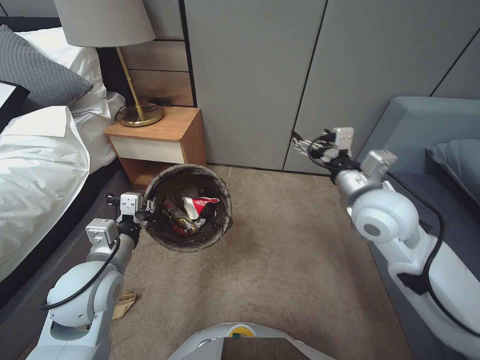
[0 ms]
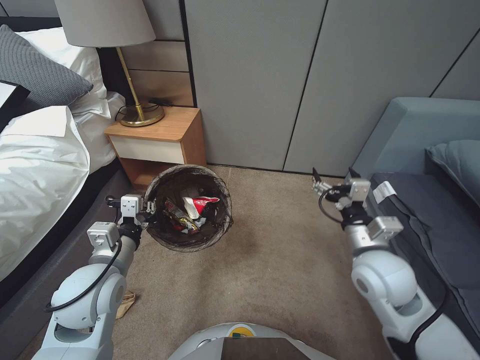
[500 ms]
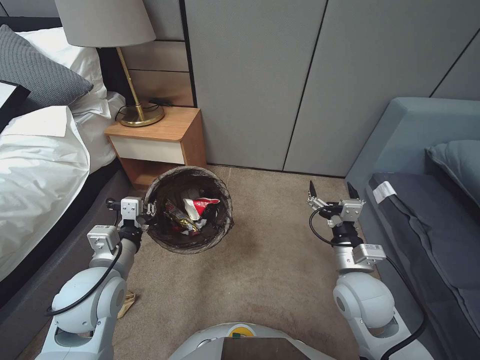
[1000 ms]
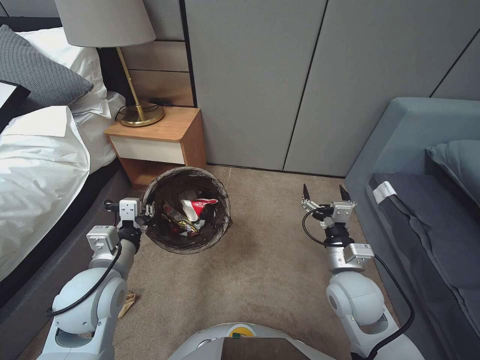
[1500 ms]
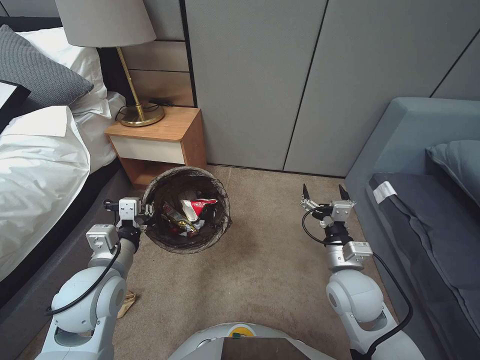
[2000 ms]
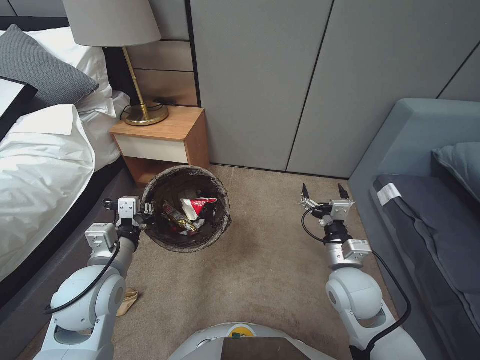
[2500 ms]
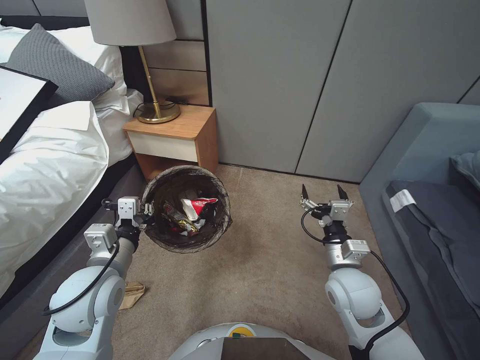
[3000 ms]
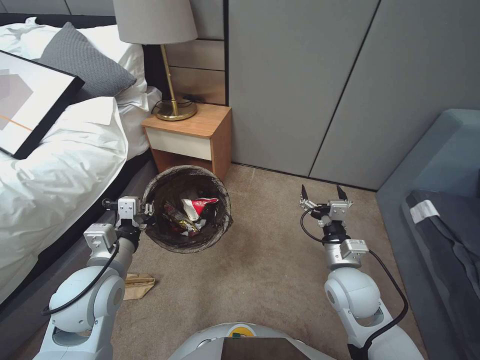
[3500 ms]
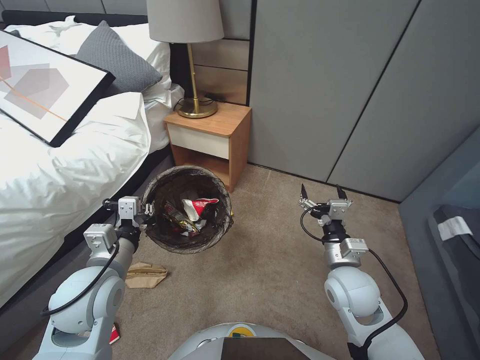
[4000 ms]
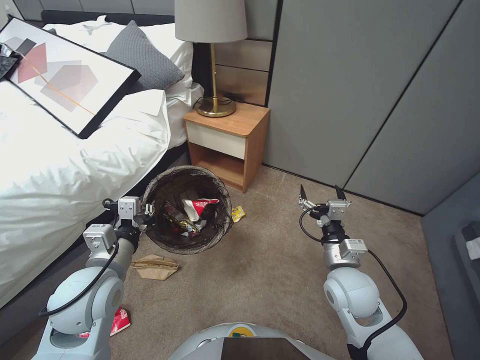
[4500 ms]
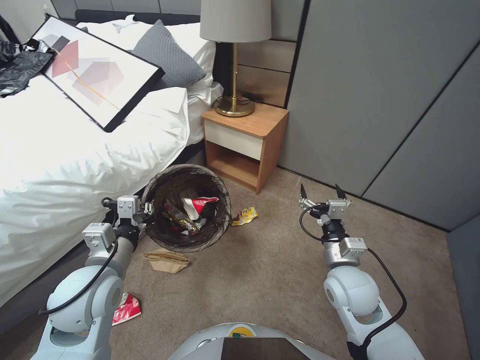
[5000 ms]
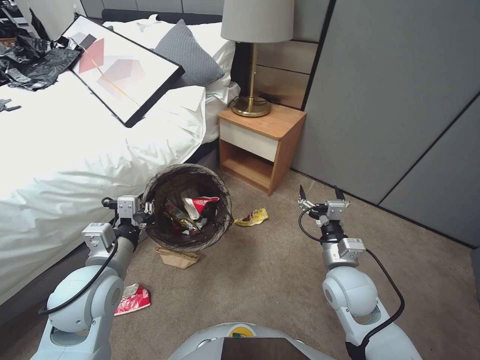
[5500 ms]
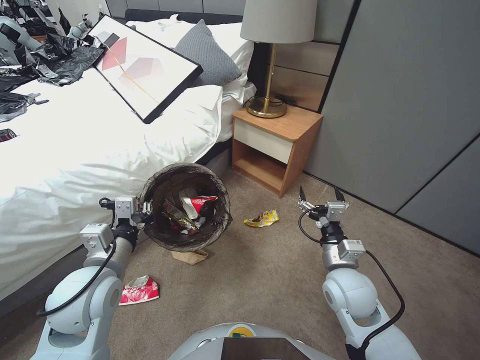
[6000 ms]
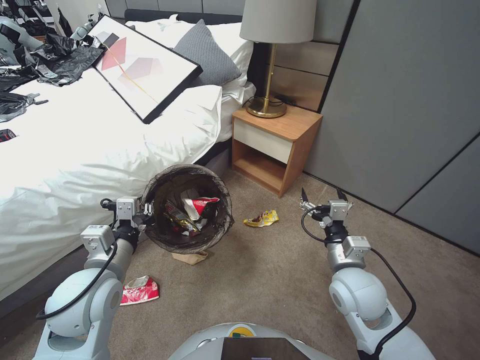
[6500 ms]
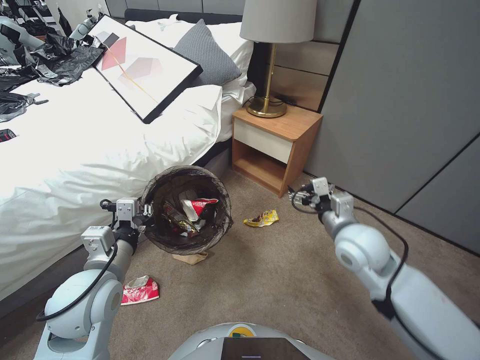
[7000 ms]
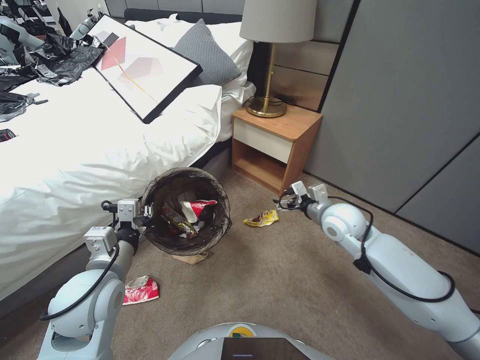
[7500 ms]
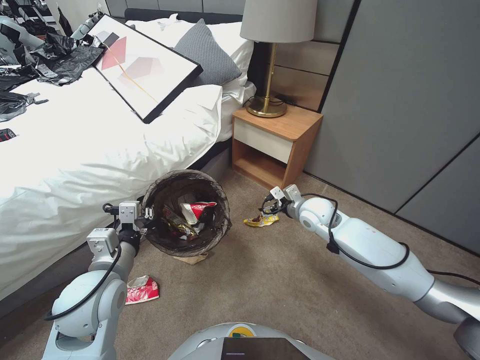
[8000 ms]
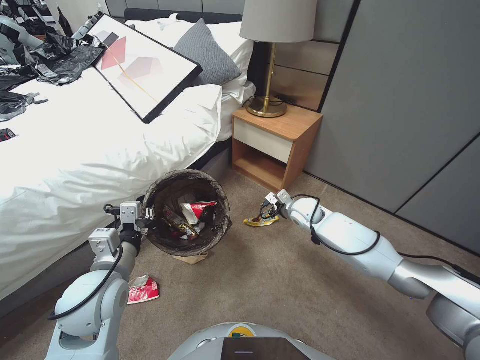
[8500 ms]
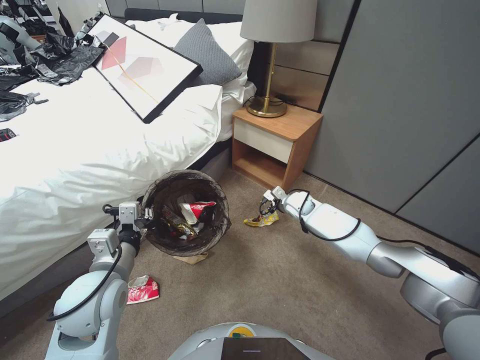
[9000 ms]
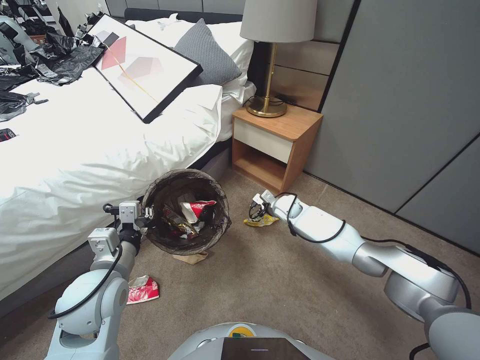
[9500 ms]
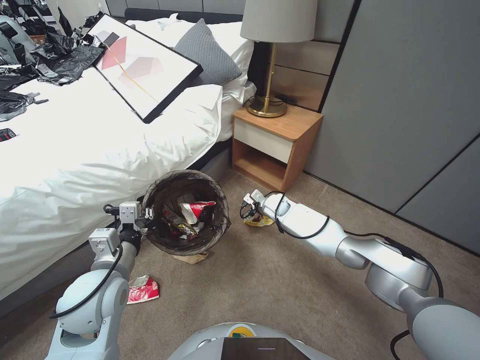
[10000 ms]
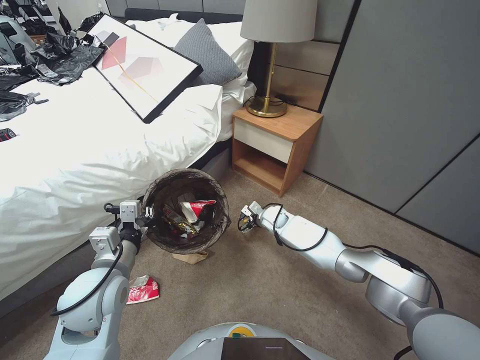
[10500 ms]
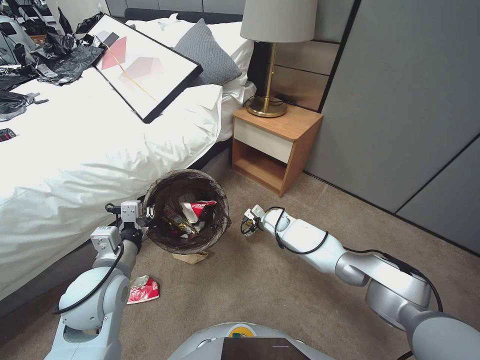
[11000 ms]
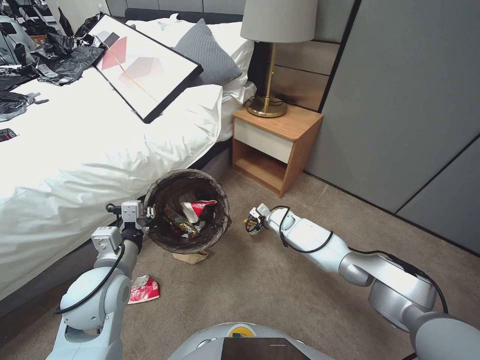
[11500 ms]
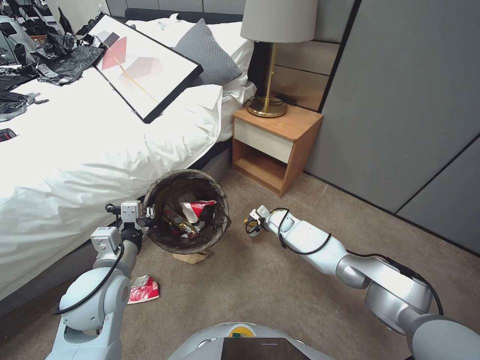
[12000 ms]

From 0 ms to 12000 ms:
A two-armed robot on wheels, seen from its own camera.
Task of the whole recording: Pick up the trash bin, then pick up the garbage from the floor and place it into the trash bin.
From 0 ms to 2000 ms: The right gripper heads downward and backward, covering approximately 20 cm.
From 6000 ms to 8000 ms: The right gripper heads forward, covering approximately 20 cm.
From 8000 ms to 10000 ms: The right gripper is displaced downward, forward and to the left by about 20 cm.
From 10000 ms to 12000 ms: The right gripper travels downward by roughly 5 cm.

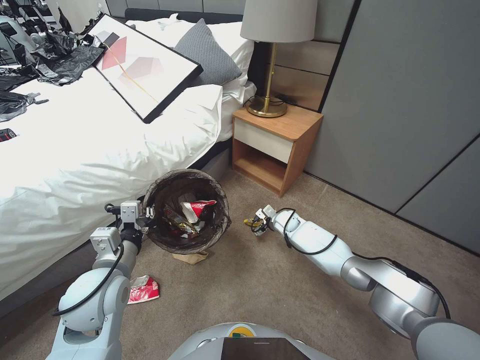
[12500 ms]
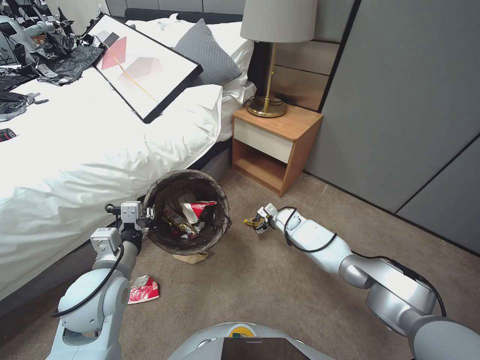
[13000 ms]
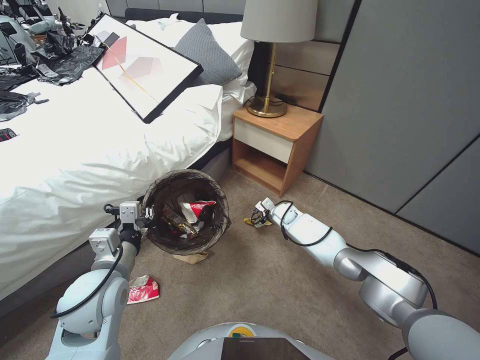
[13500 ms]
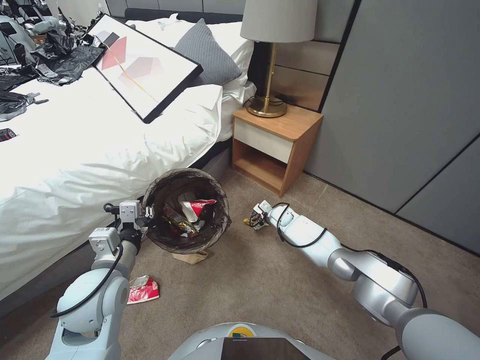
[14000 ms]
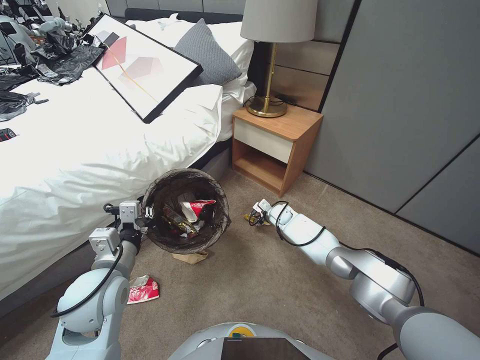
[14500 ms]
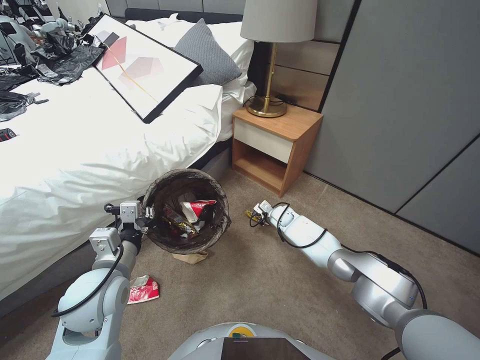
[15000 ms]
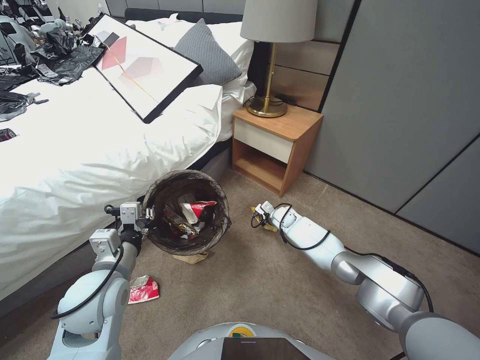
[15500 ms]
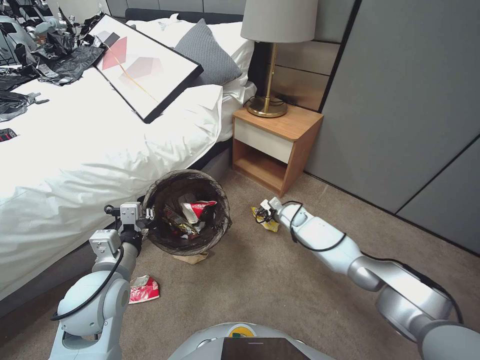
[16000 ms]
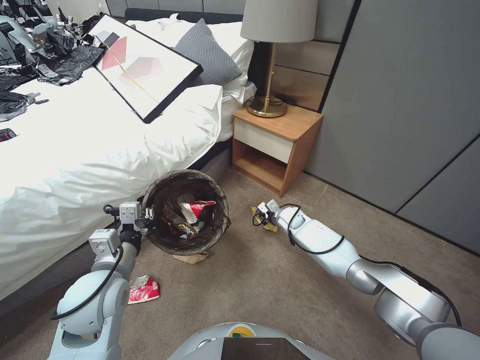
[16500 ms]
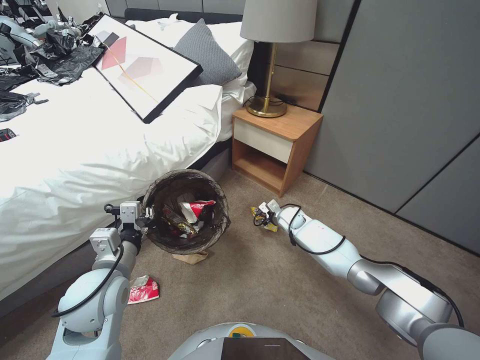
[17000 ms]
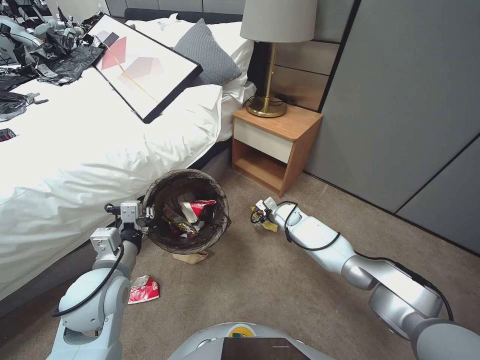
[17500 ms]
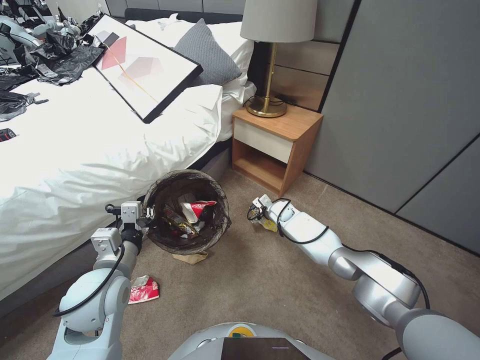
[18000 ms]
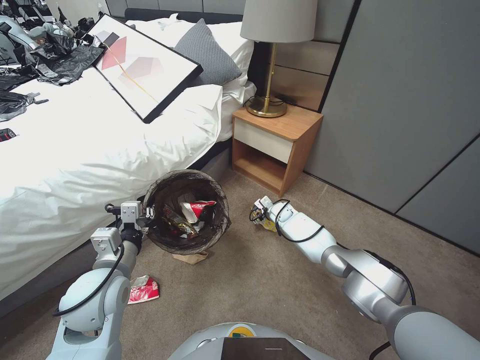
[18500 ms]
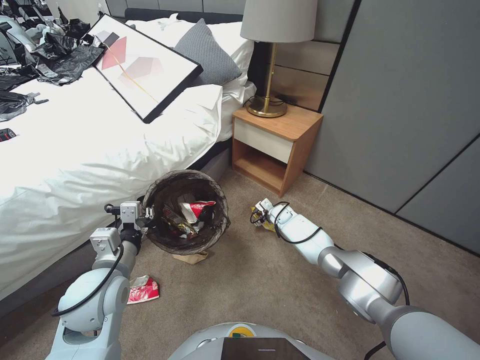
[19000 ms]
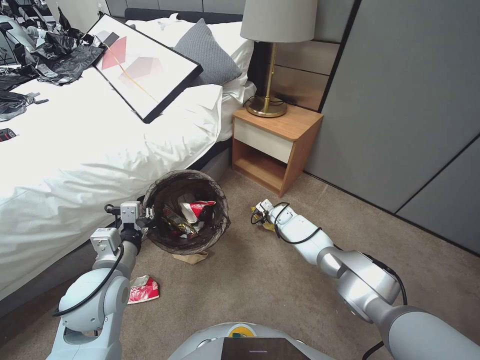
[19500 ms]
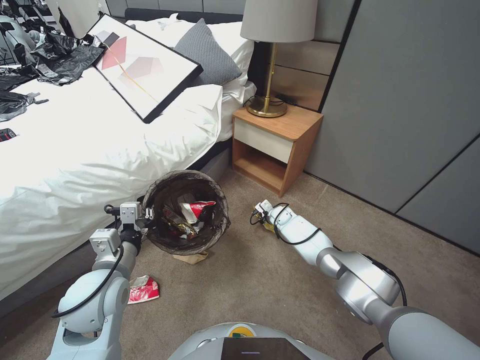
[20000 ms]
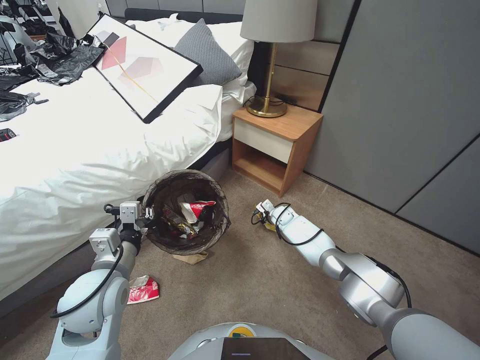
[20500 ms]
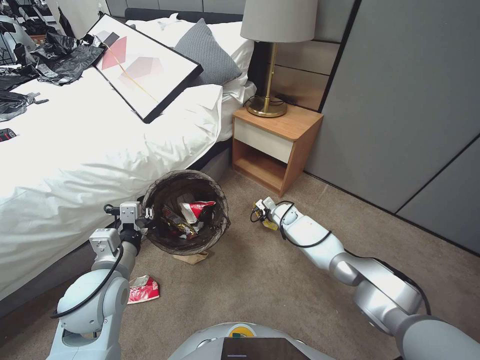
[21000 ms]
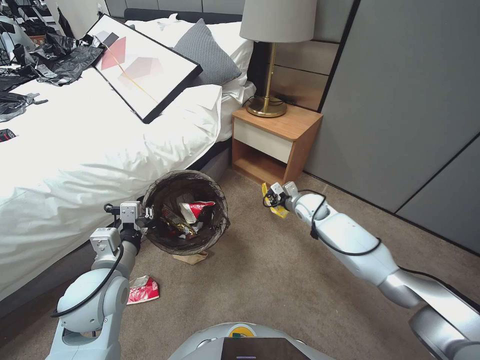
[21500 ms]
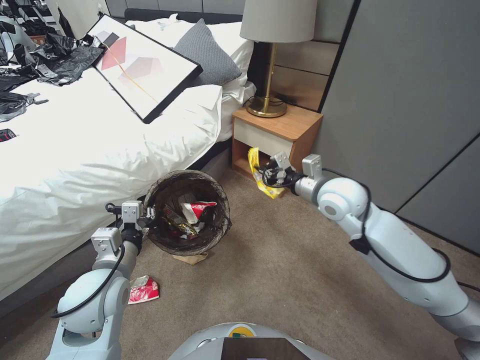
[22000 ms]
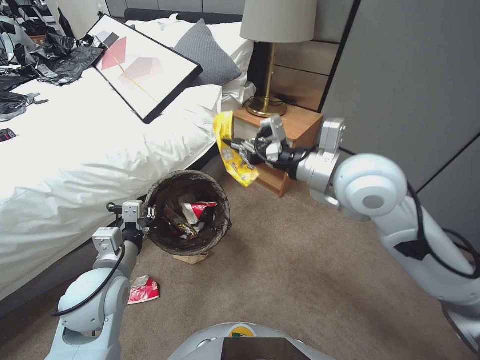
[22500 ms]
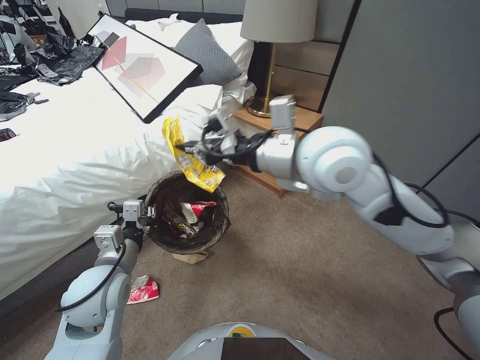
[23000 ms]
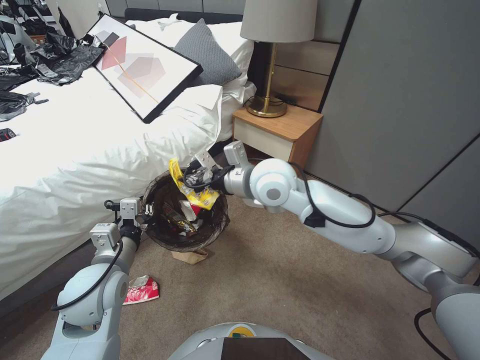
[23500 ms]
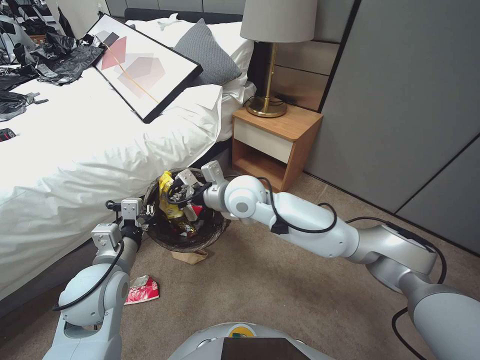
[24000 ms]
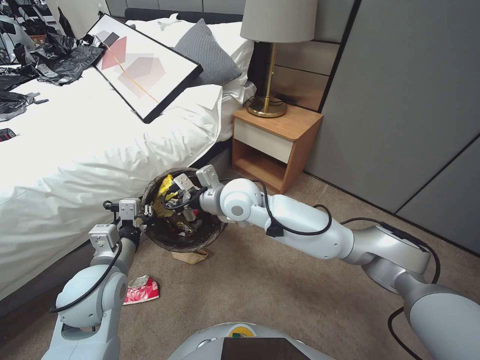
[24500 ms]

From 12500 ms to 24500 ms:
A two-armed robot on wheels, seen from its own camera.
Task of the whole recording: Pick up the trash bin, then pick up the garbage from the floor and place it into the trash bin.
From 12500 ms to 14500 ms: There are only small adjustments of the grippers.
From 14500 ms to 16500 ms: The right gripper closes up.
From 16500 ms to 18500 ms: The right gripper ends up roughly 5 cm from where it was, and opens.
From 18500 ms to 20500 ms: The right gripper closes up.
From 20500 ms to 22500 ms: The right gripper moves upward and backward, some 50 cm.
From 22500 ms to 24500 ms: The right gripper heads to the left and downward, covering roughly 25 cm.

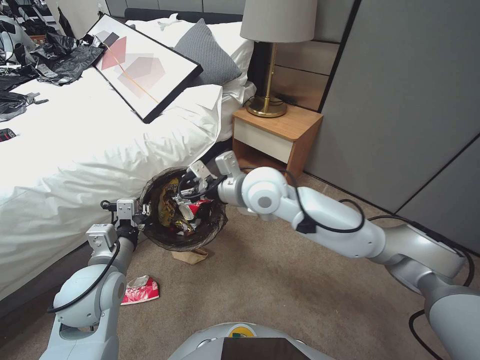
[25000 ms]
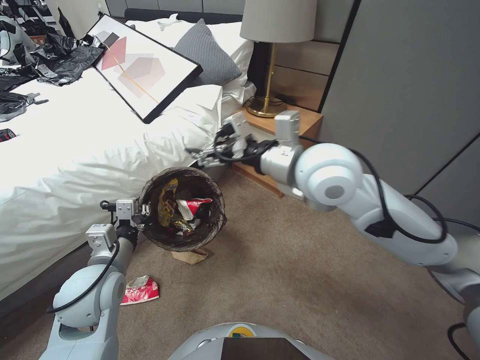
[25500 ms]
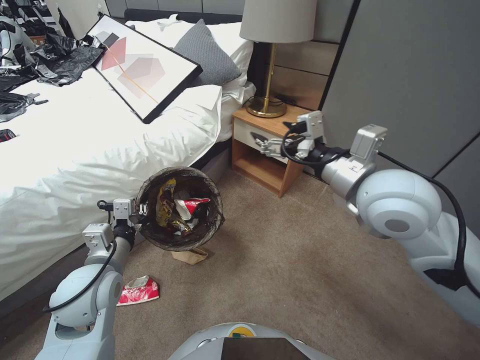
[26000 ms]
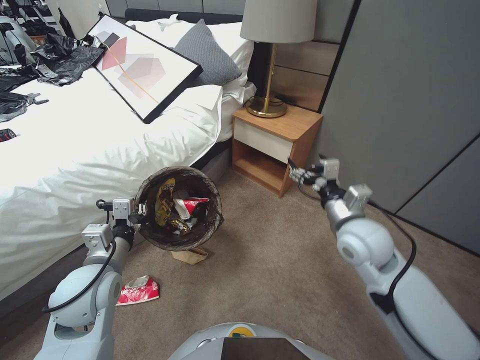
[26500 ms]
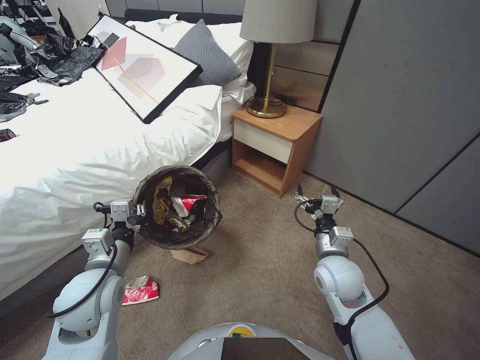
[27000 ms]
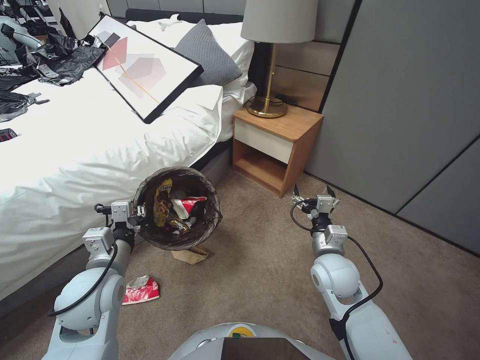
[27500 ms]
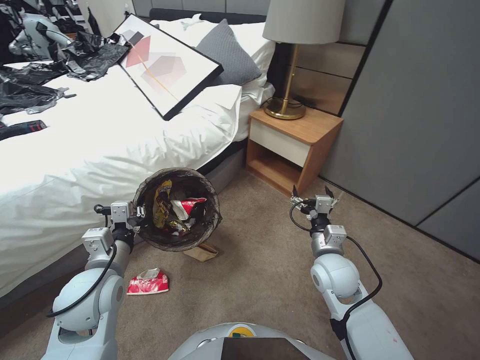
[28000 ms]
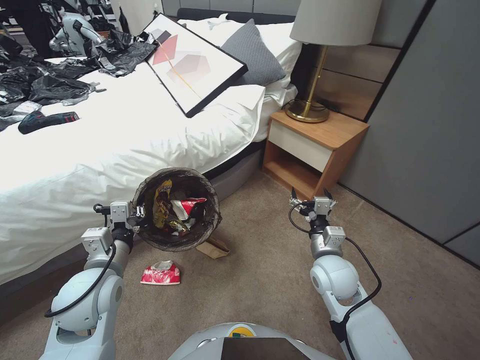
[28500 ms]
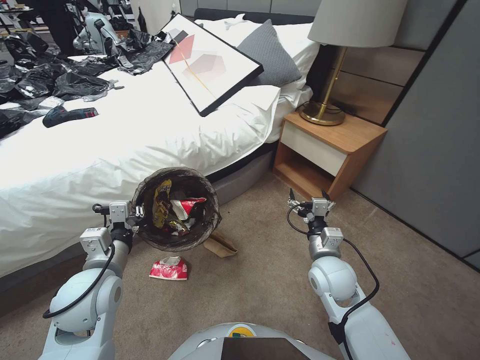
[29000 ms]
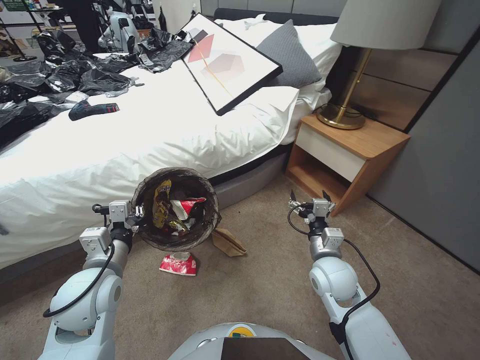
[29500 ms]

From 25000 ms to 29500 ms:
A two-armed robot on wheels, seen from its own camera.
Task of the whole recording: Pick up the trash bin, then pick up the garbage from the floor and place it into the trash bin.
From 25000 ms to 27000 ms: The right gripper is displaced to the right, downward and backward by some 30 cm, and opens up.
